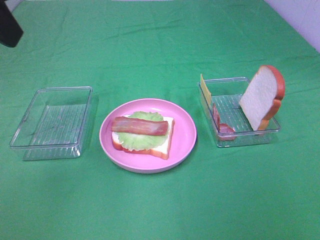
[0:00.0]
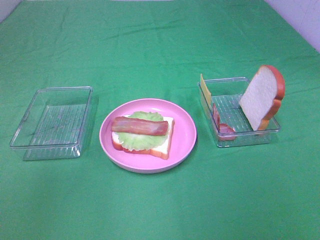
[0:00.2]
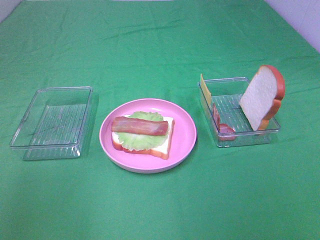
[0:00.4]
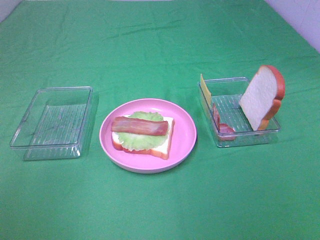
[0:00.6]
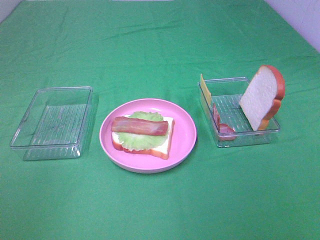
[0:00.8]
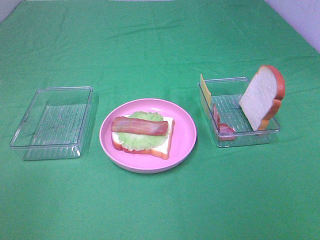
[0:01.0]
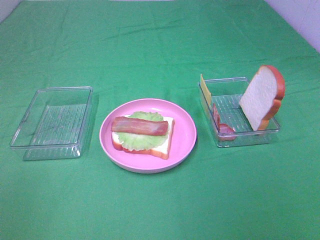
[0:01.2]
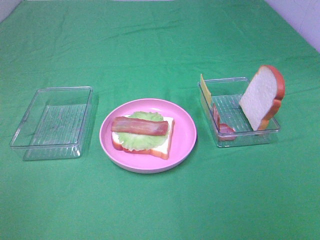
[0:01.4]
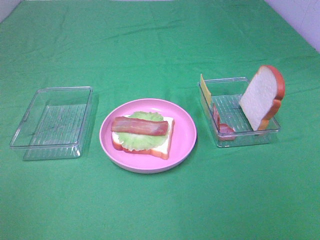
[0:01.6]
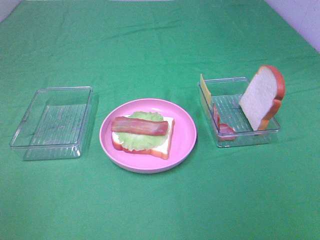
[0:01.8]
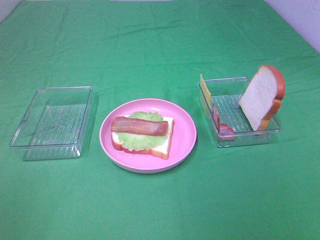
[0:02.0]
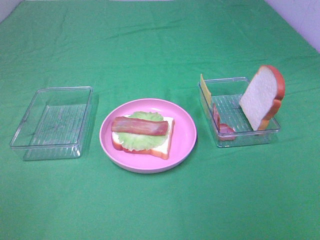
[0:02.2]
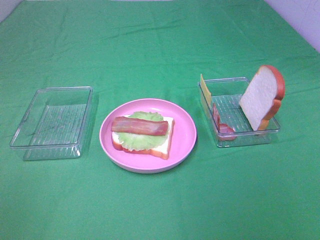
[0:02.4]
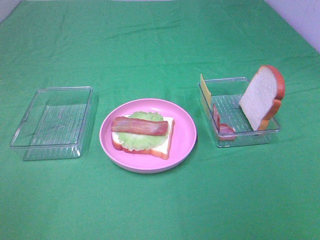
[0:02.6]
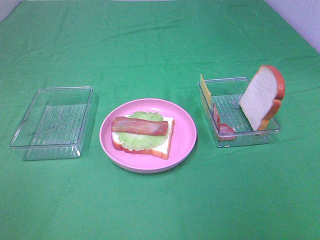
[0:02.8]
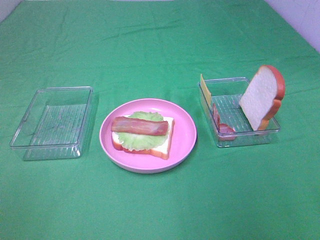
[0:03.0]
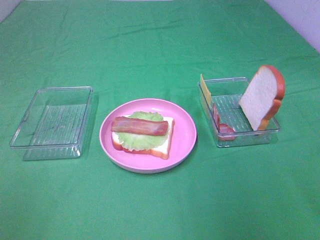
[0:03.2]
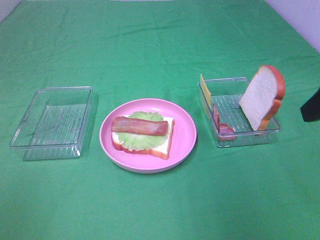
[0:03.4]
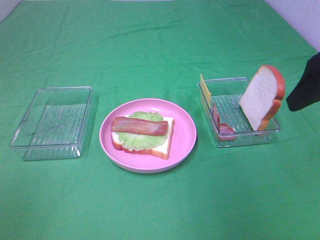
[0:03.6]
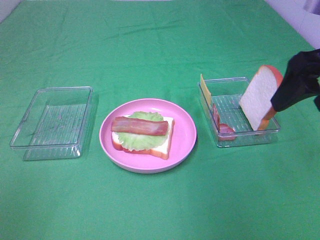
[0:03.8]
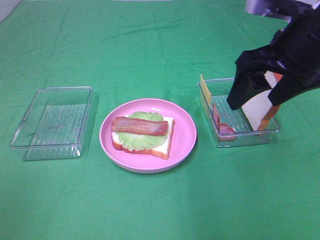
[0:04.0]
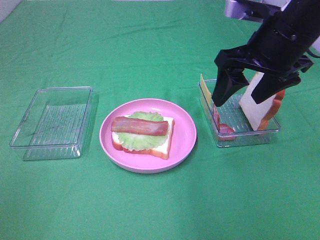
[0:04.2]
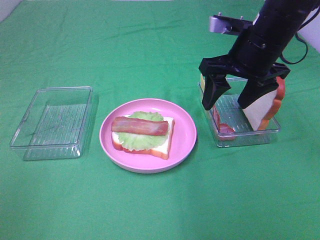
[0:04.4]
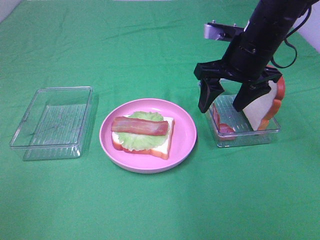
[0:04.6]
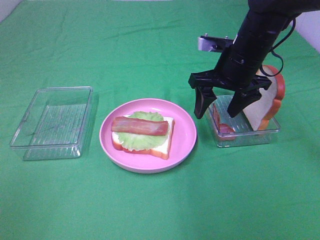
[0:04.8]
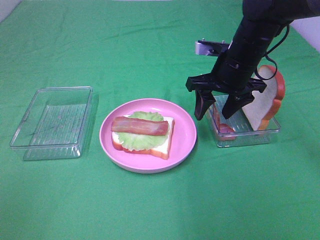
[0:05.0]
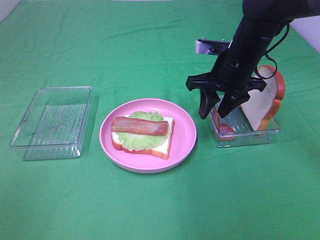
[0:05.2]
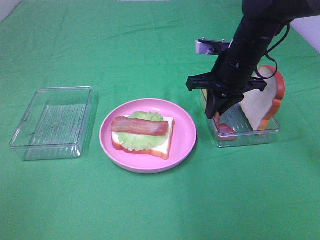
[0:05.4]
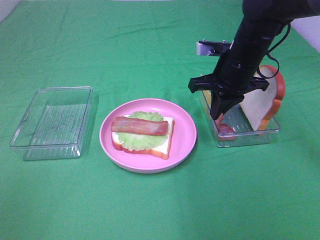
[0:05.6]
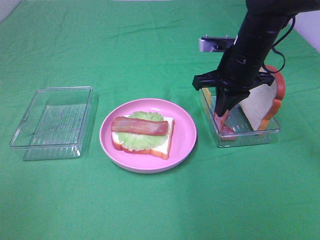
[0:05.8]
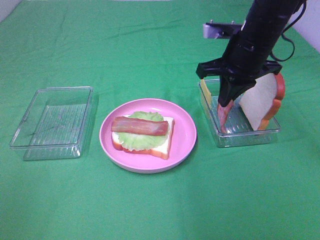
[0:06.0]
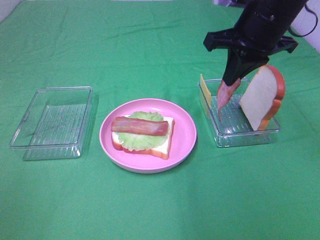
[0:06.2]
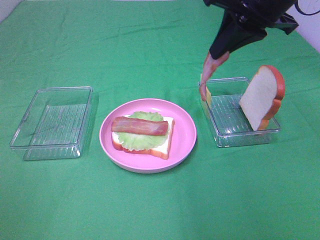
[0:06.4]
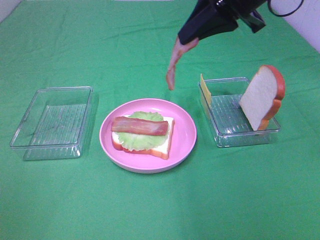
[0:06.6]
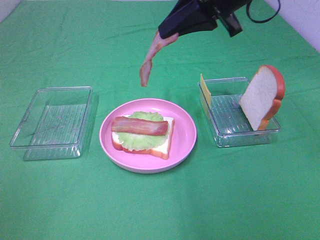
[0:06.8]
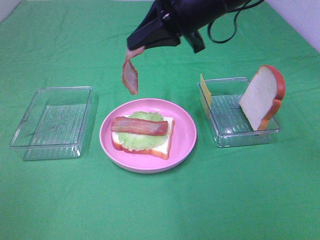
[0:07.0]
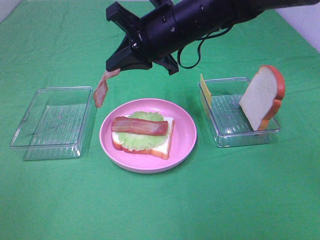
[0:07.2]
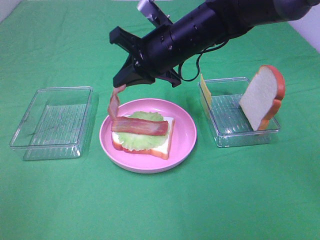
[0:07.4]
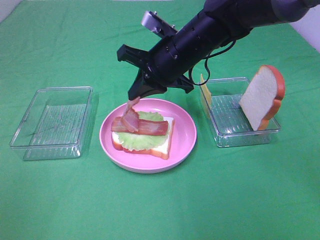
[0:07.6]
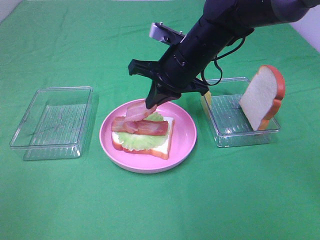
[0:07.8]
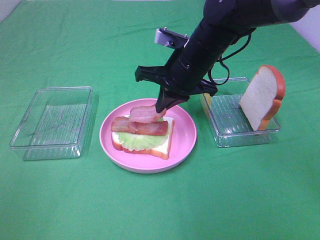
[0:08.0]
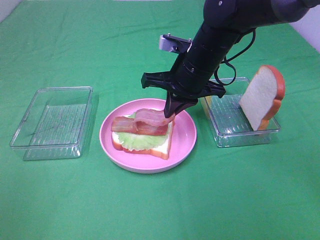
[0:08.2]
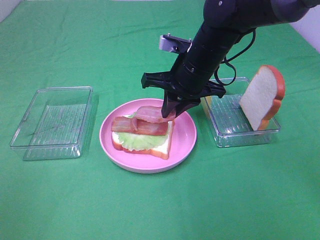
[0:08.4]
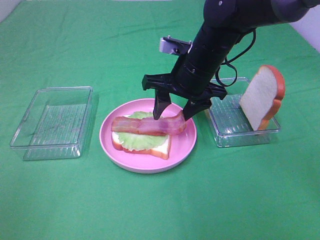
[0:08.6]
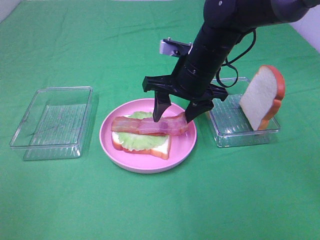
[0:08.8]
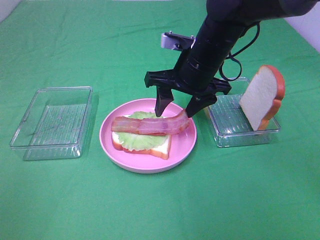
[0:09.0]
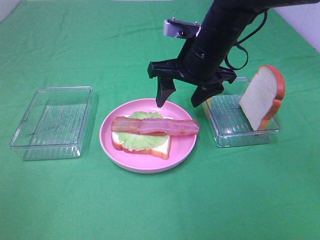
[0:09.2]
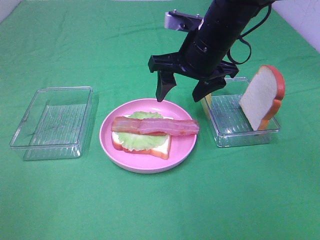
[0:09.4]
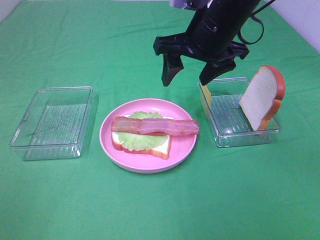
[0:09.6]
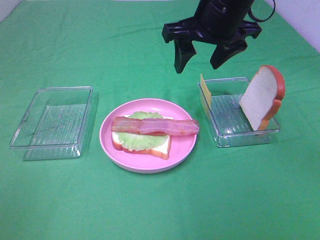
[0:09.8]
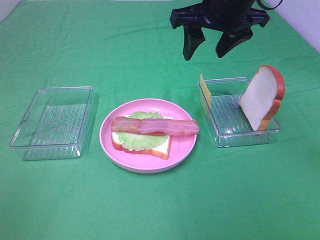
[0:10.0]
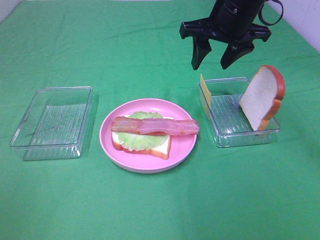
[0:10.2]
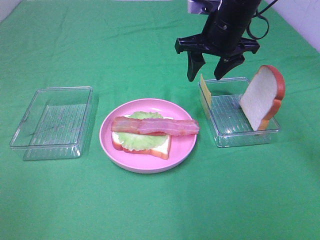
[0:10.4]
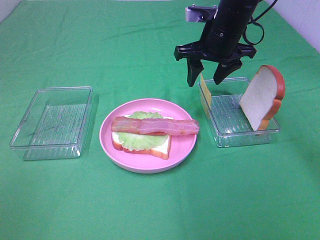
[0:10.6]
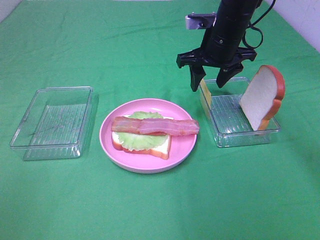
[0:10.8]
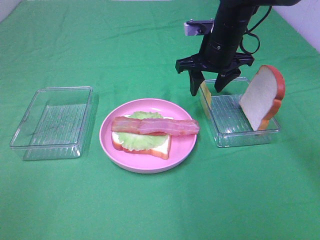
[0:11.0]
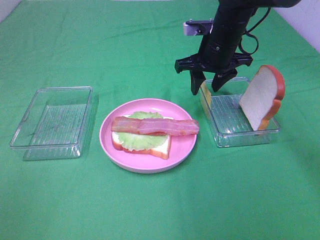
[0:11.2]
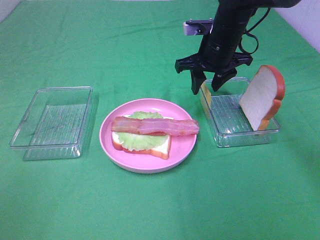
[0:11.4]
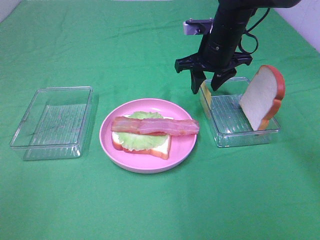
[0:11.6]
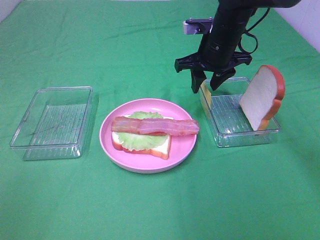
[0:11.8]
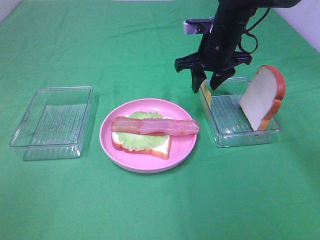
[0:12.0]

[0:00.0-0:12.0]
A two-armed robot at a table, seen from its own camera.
Task of the whole recording: Make sandwiches.
Step, 0:00.0 to 0:05.6: Right hand:grab the bacon.
Step, 0:05.8 to 0:09.2: Right hand:place bacon on bacon.
0:00.0 to 0:01.6: The left gripper goes some 25 cm backward, downward and to the left.
0:03.0 to 0:04.4: The right gripper heads forward and to the left, covering roughly 30 cm.
0:04.4 to 0:06.0: The right gripper closes.
0:06.0 to 0:07.6: The right gripper heads to the left, covering approximately 10 cm, and reaches about 10 cm upward, then returns.
0:07.6 to 0:09.0: The right gripper opens up.
0:09.0 to 0:10.4: The right gripper is displaced forward by roughly 5 cm.
0:10.4 to 0:12.0: There are only small adjustments of the grippers.

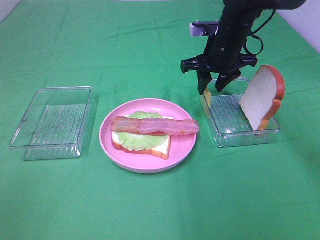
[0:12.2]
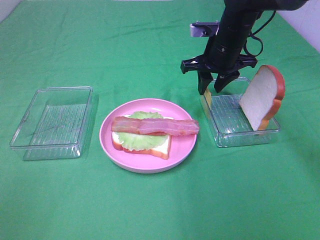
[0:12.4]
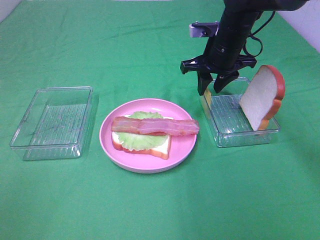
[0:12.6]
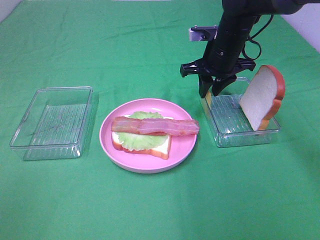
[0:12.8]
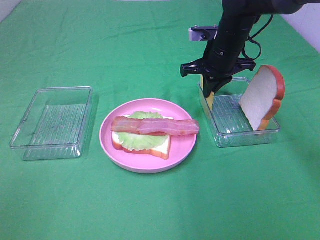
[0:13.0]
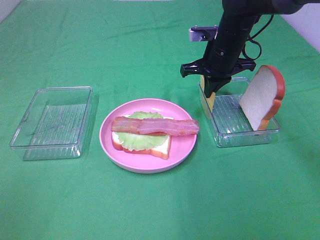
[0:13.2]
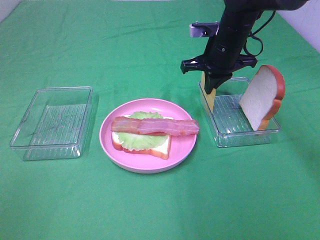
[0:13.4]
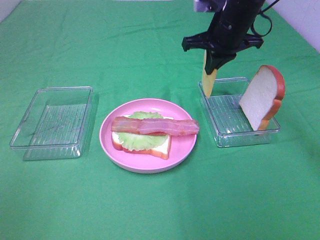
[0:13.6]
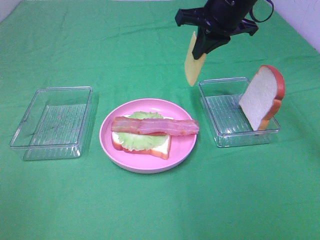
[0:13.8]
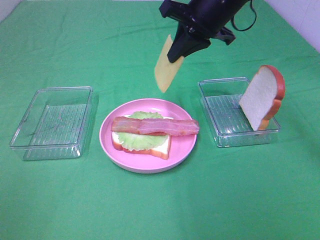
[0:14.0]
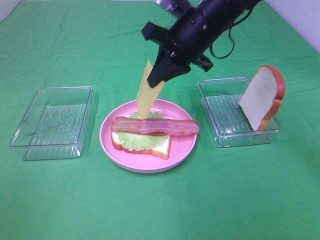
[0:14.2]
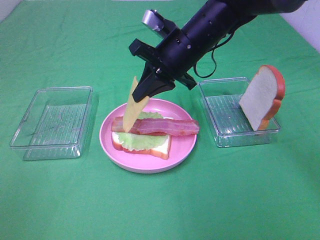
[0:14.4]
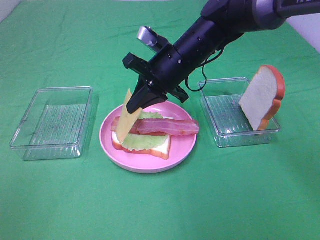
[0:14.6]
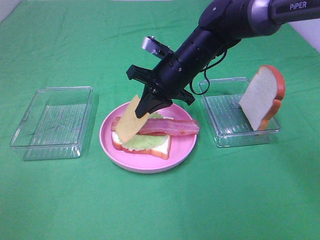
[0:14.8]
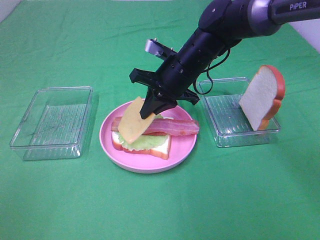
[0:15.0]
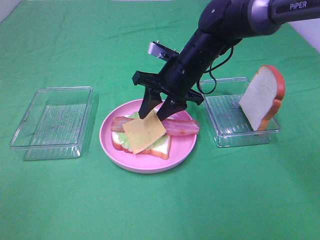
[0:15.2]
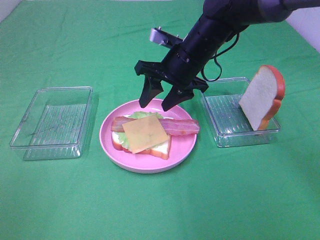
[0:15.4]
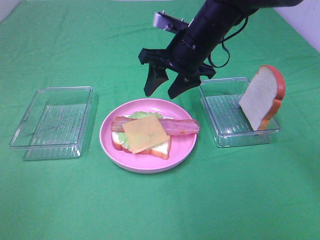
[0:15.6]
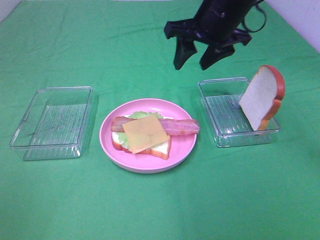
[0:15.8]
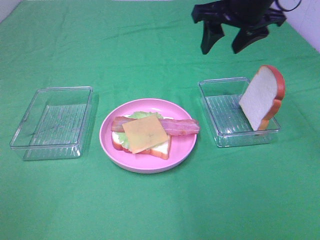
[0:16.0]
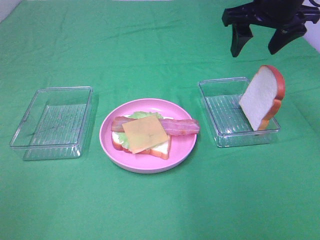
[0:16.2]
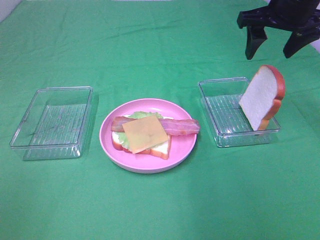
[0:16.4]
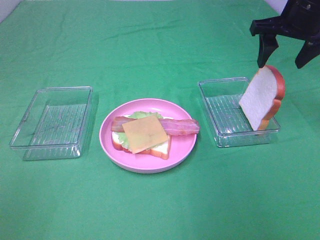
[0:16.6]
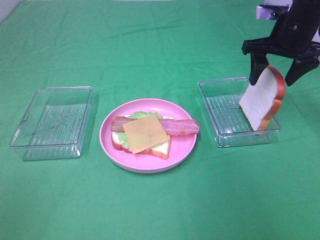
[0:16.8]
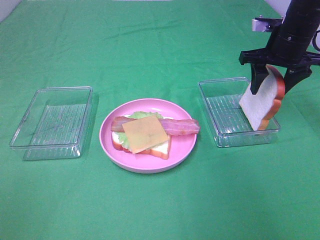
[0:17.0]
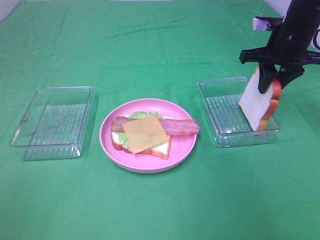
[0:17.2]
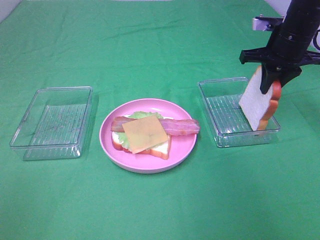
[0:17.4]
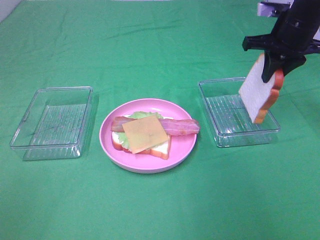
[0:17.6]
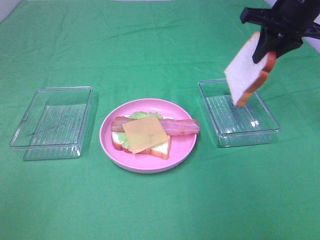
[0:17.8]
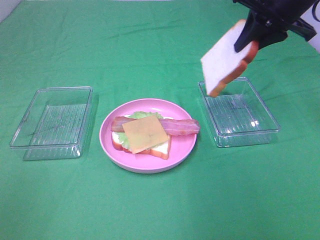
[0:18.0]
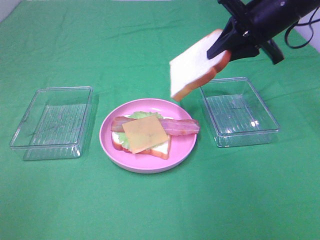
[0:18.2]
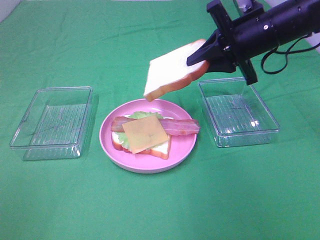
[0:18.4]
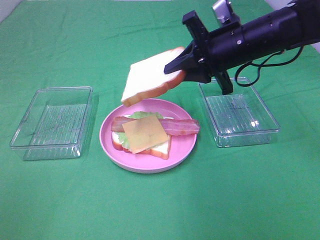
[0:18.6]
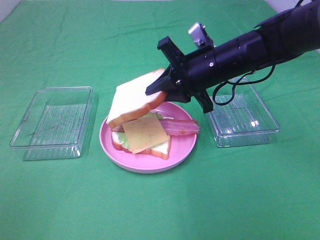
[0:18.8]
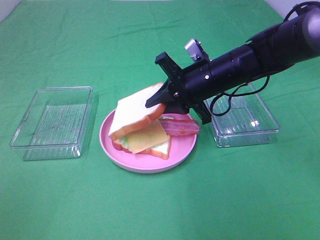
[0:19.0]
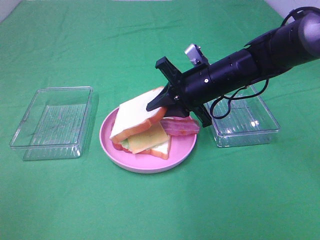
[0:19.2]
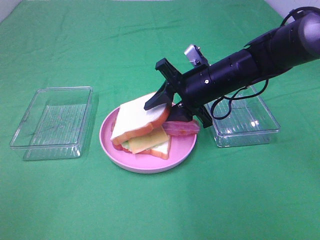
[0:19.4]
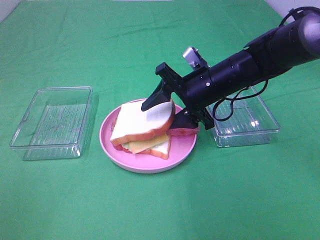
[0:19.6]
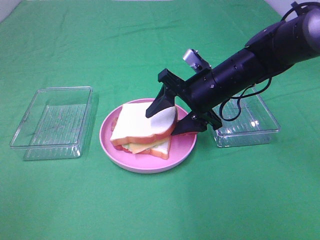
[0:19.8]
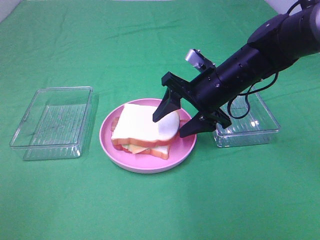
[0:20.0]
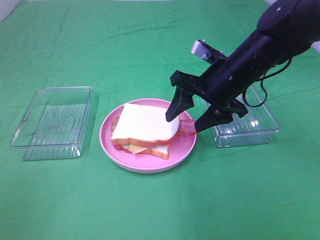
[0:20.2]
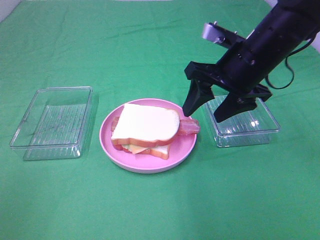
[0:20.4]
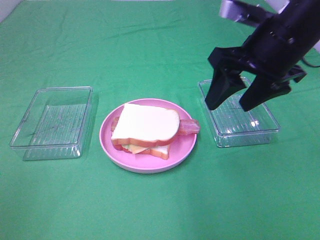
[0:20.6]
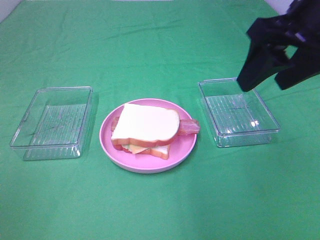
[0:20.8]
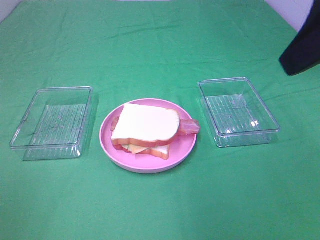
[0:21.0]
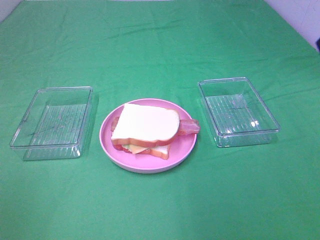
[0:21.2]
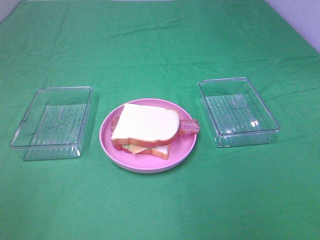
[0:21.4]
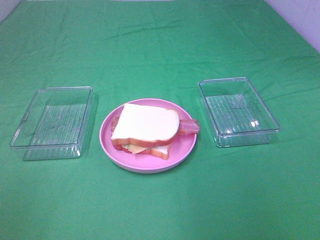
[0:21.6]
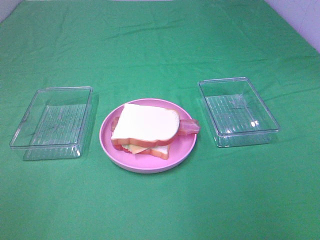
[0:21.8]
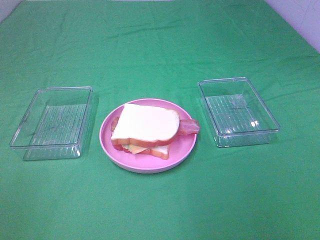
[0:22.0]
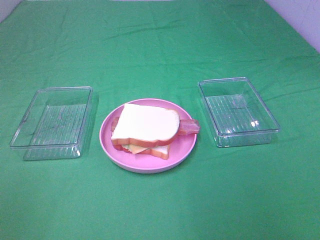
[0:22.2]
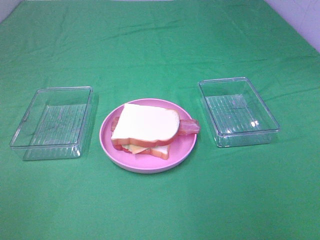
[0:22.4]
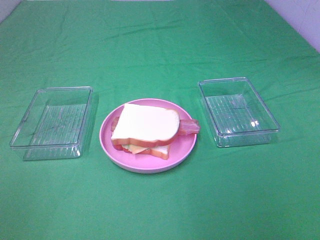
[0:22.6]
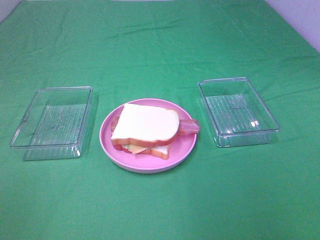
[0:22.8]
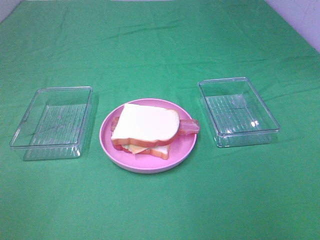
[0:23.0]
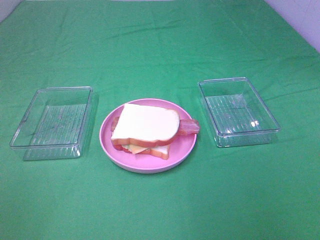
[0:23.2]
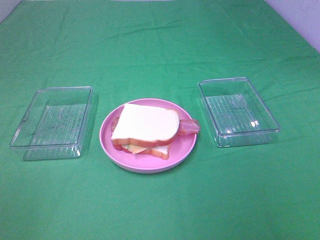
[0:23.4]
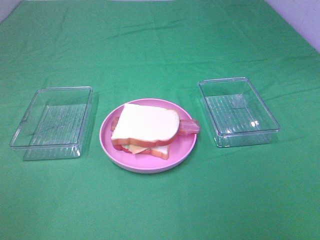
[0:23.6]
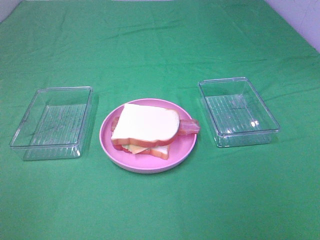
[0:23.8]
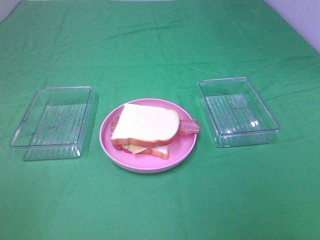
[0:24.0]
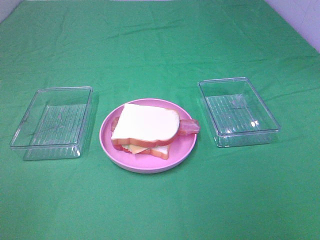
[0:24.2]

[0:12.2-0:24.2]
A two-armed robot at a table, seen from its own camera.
Task of the whole recording: Make sandwiches.
Step, 0:13.4 to 0:15.4: Right hand:place the cheese slice on top of the bacon.
Step, 0:15.6 to 0:17.4: Right hand:grab the bread slice.
Step, 0:17.6 to 0:20.2: Right hand:place the bread slice on the cheese slice.
0:12.2 to 0:13.8: The right gripper is displaced upward by approximately 10 cm, and closes its fingers.
0:13.8 to 0:15.2: The right gripper is displaced downward and to the left by about 15 cm, and opens its fingers.
0:15.2 to 0:16.6: The right gripper travels to the right and upward by approximately 20 cm.
0:16.6 to 0:18.2: The right gripper is displaced to the left by roughly 5 cm, moves some 5 cm downward and comes back, and closes its fingers.
0:18.2 to 0:19.8: The right gripper travels downward and to the left by roughly 15 cm, and opens.
0:19.8 to 0:21.2: The right gripper heads upward, backward and to the right, covering roughly 35 cm.
